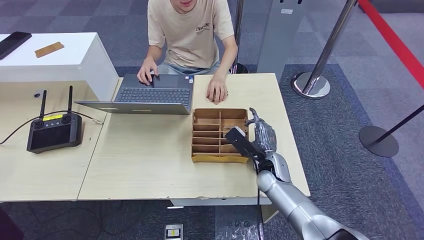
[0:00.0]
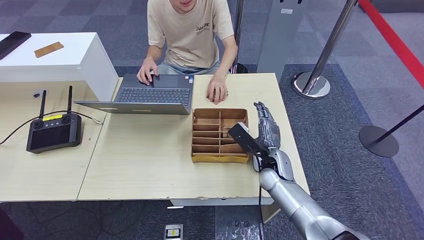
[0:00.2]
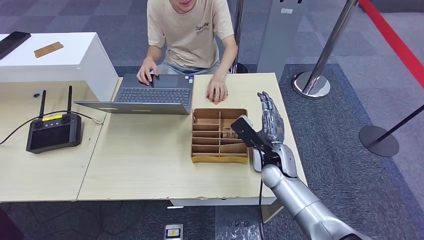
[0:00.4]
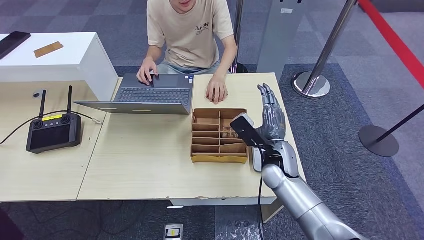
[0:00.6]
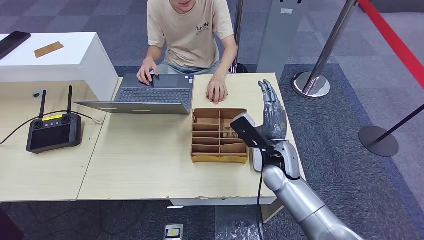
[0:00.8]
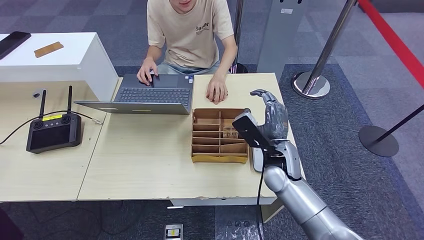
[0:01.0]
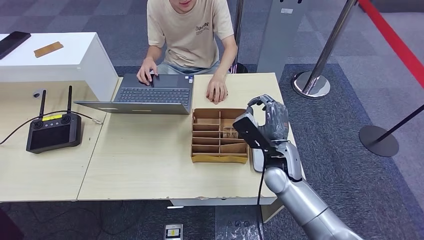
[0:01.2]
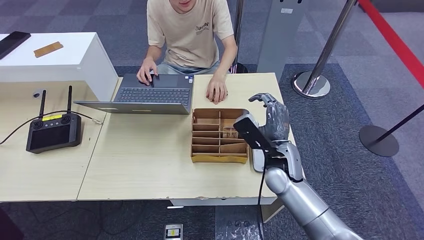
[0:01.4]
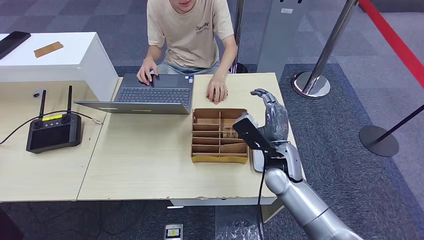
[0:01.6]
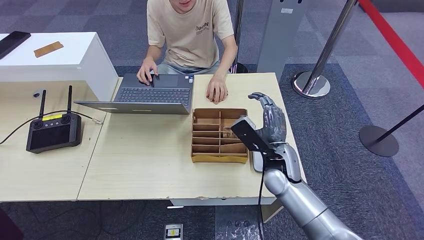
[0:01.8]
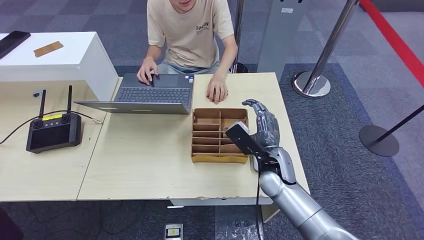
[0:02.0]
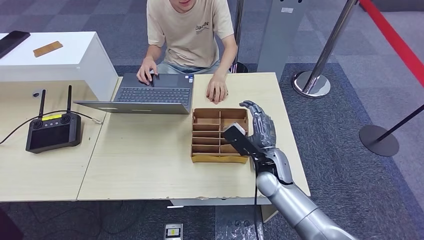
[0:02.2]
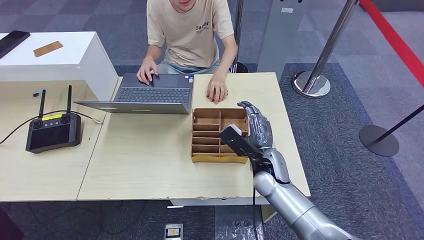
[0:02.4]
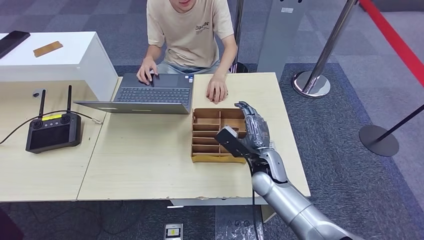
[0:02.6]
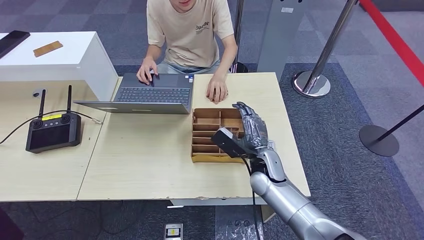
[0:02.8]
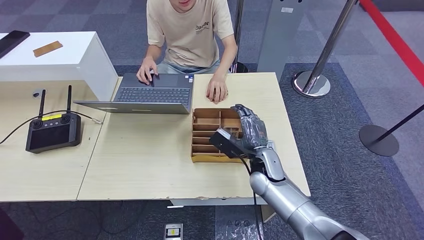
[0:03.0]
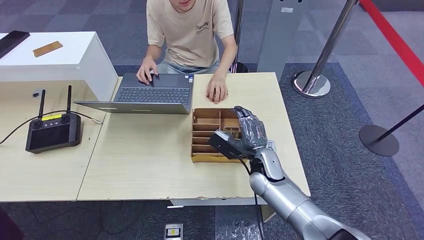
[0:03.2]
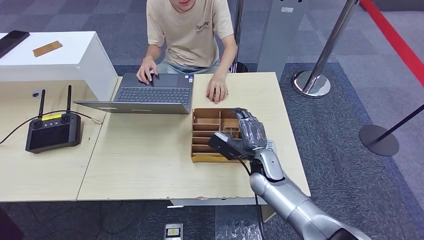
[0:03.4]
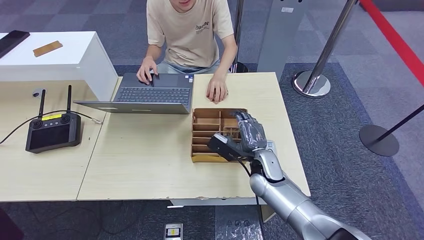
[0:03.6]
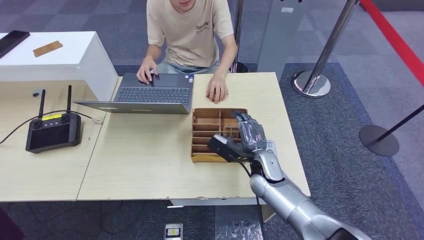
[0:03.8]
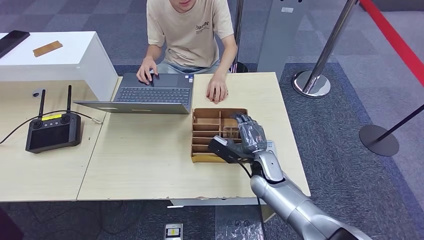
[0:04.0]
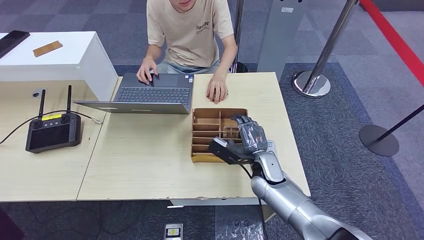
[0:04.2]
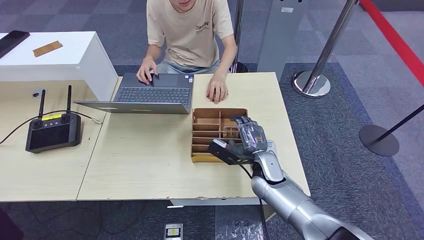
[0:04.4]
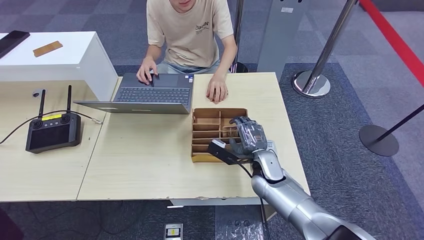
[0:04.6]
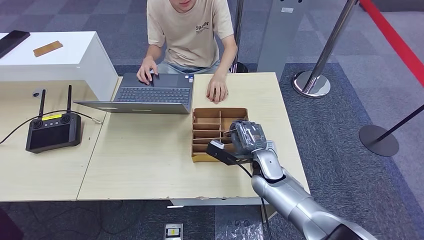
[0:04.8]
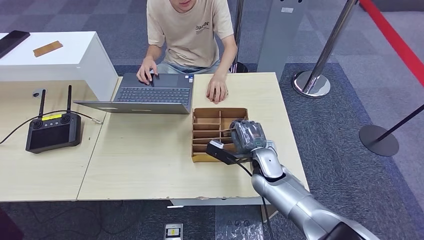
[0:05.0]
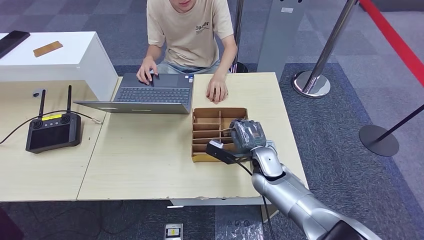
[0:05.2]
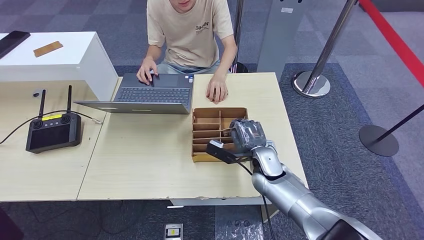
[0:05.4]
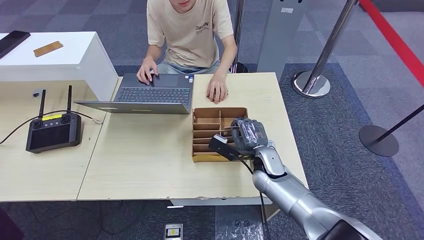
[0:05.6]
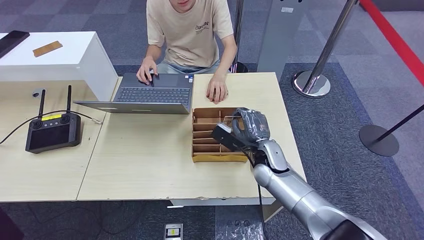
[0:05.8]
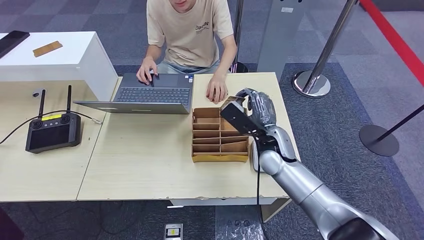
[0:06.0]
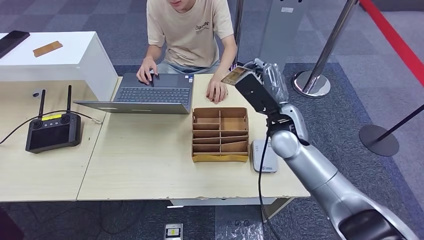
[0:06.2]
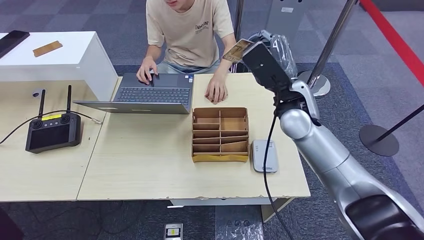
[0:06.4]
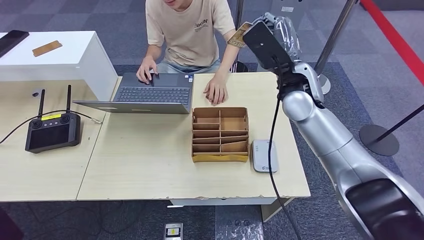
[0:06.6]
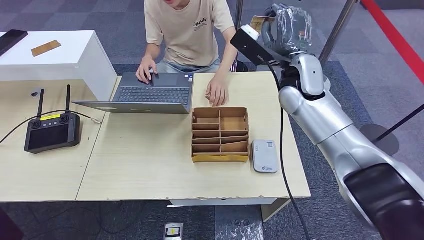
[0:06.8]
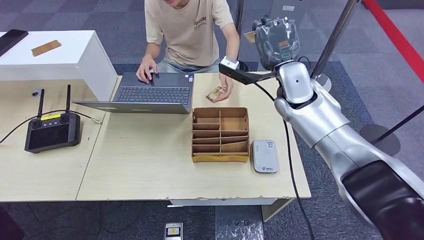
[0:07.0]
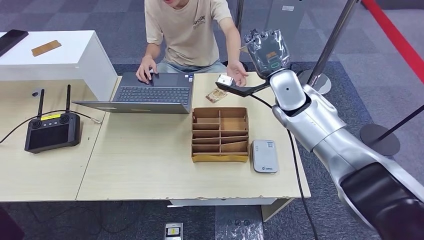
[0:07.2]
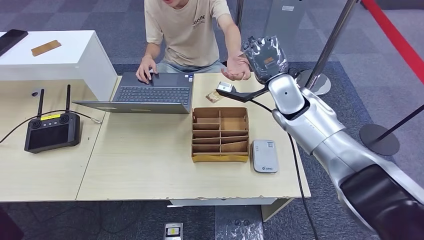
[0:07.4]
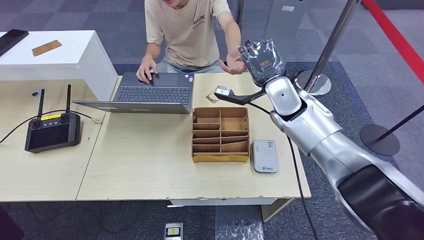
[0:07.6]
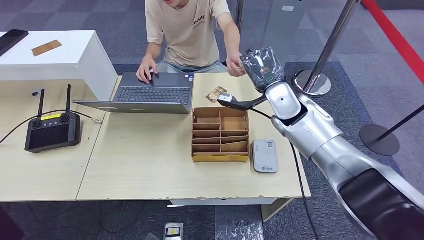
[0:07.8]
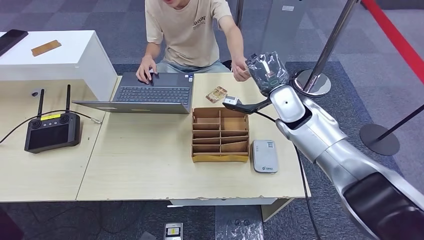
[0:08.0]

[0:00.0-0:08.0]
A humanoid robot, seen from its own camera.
Step, 0:03.6 to 0:06.6: Pick up the room key from the key card box.
Step, 0:07.0 to 0:08.0: Hand the room key to the person.
0:00.0 to 0:01.6: The right hand moves upward, roughly 10 cm.
0:01.6 to 0:03.2: The right hand goes roughly 5 cm downward.
0:03.2 to 0:04.8: The hands move only a little.
0:04.8 to 0:06.4: The right hand goes roughly 20 cm upward.
0:06.4 to 0:08.0: The right hand travels downward by roughly 5 cm.
